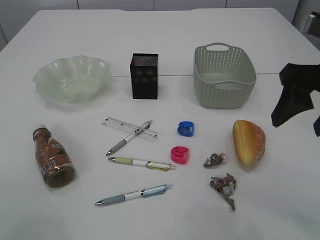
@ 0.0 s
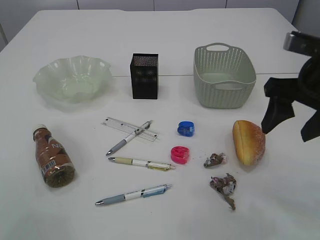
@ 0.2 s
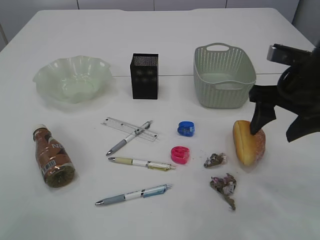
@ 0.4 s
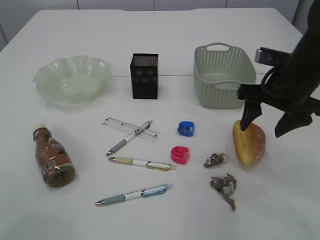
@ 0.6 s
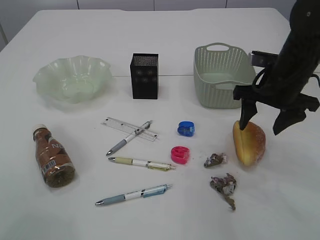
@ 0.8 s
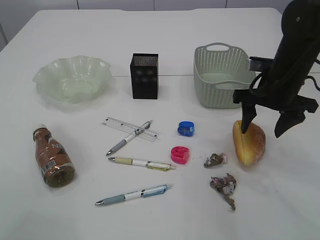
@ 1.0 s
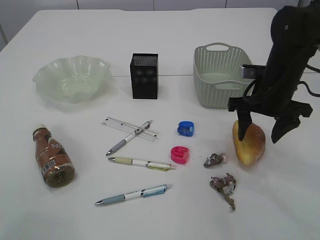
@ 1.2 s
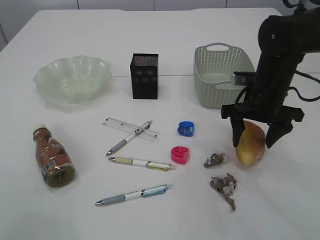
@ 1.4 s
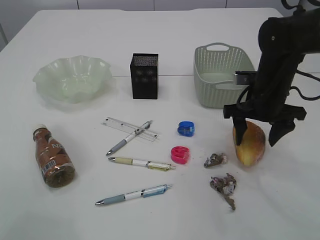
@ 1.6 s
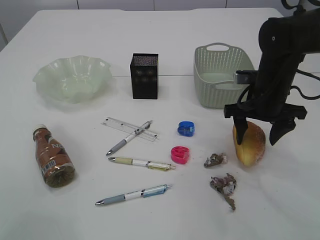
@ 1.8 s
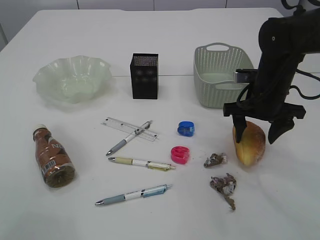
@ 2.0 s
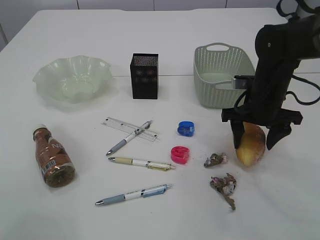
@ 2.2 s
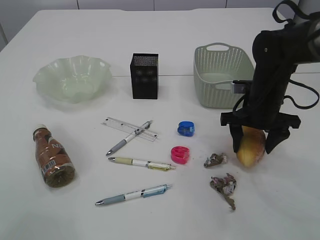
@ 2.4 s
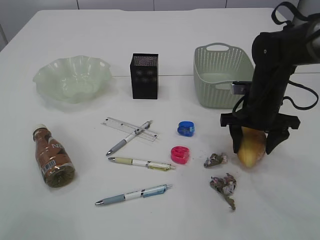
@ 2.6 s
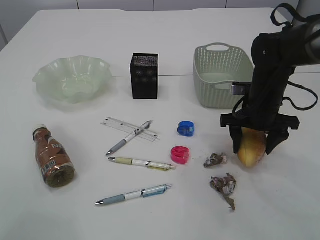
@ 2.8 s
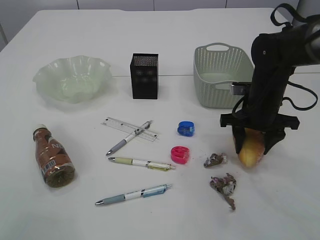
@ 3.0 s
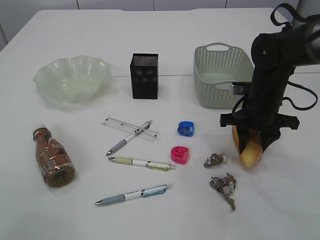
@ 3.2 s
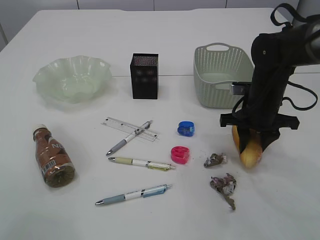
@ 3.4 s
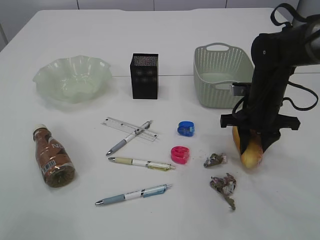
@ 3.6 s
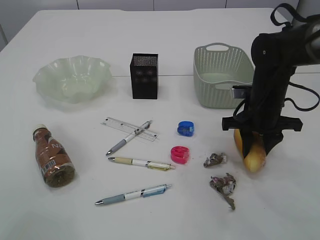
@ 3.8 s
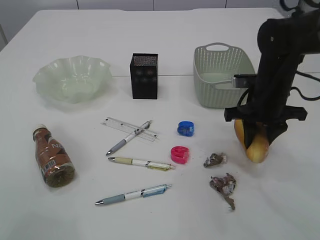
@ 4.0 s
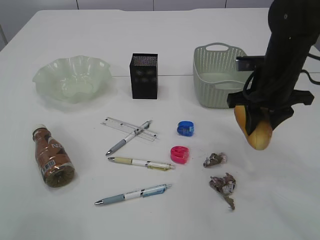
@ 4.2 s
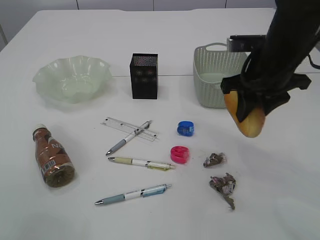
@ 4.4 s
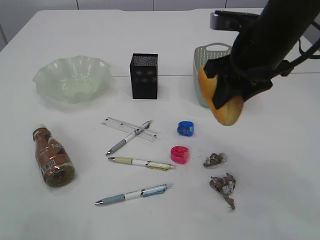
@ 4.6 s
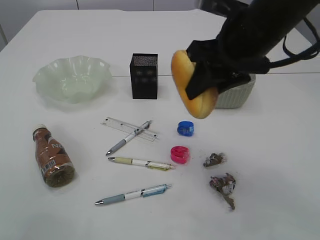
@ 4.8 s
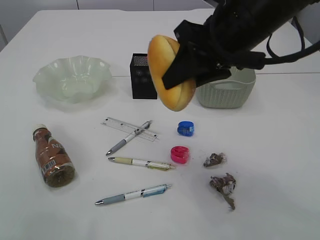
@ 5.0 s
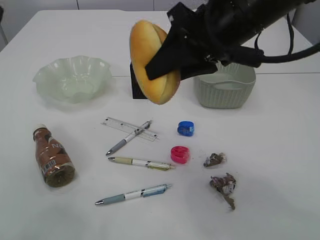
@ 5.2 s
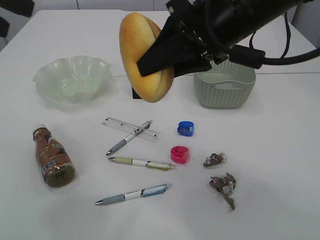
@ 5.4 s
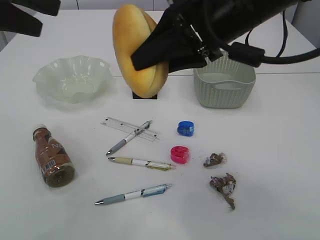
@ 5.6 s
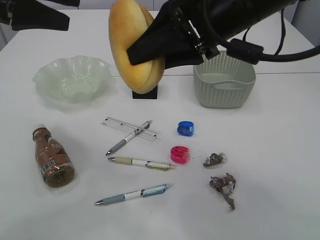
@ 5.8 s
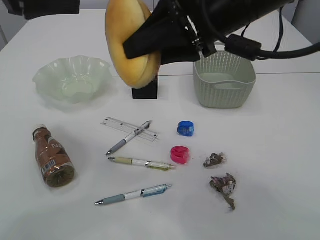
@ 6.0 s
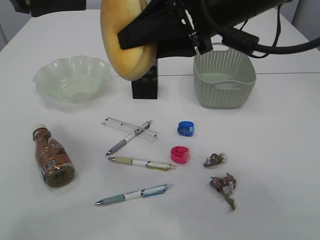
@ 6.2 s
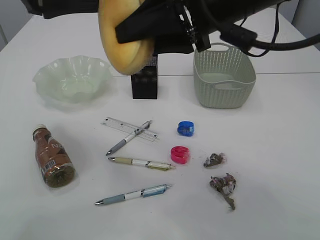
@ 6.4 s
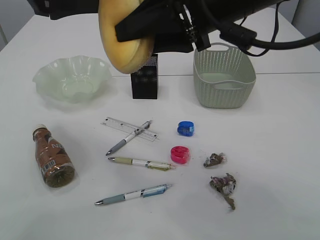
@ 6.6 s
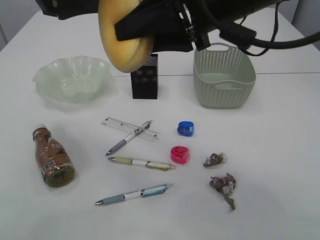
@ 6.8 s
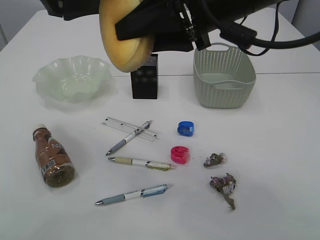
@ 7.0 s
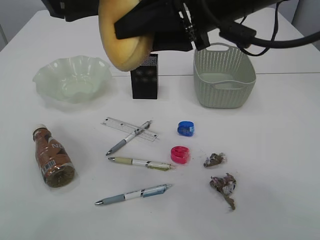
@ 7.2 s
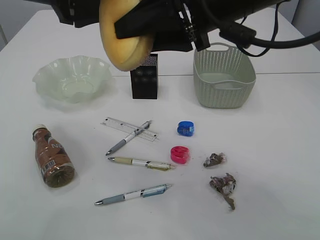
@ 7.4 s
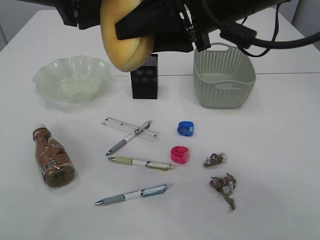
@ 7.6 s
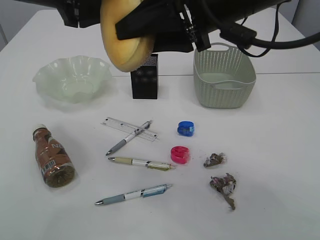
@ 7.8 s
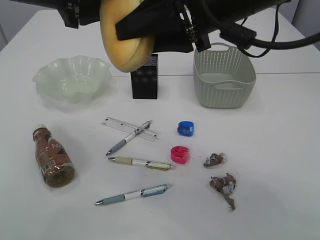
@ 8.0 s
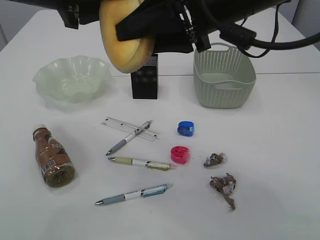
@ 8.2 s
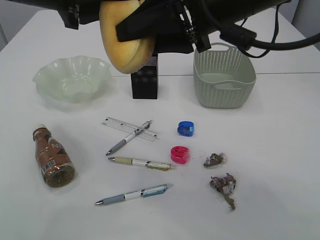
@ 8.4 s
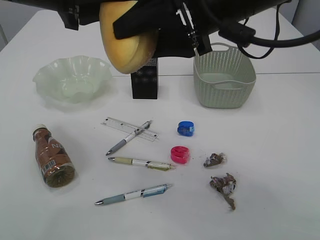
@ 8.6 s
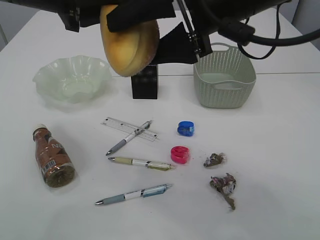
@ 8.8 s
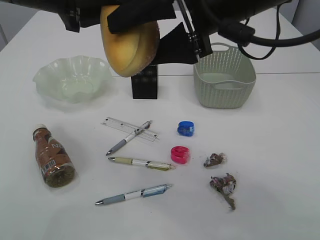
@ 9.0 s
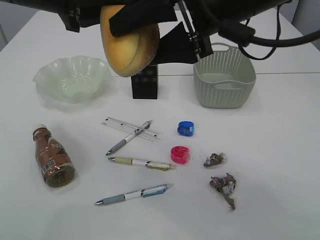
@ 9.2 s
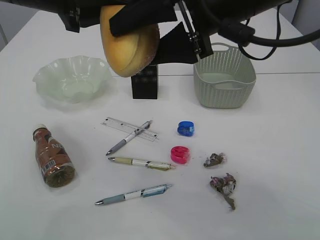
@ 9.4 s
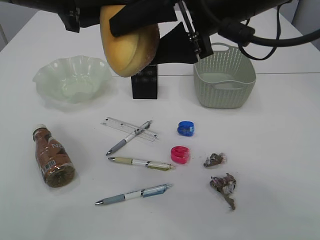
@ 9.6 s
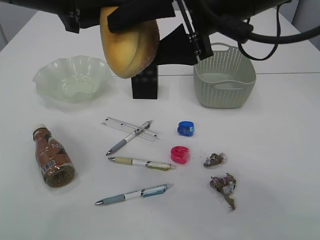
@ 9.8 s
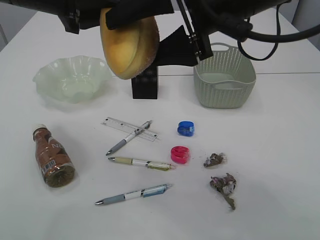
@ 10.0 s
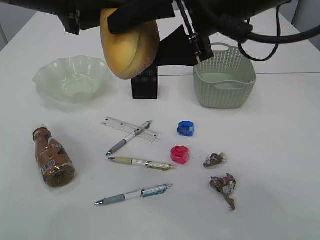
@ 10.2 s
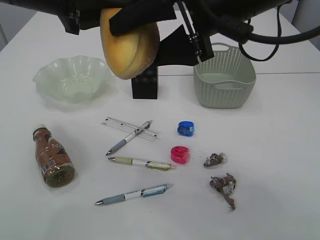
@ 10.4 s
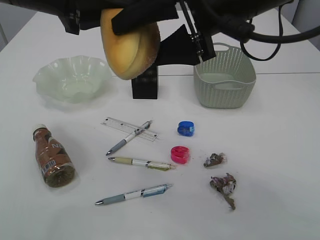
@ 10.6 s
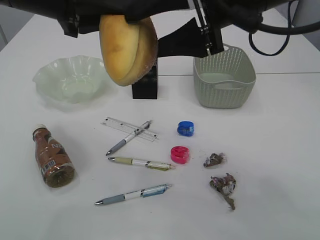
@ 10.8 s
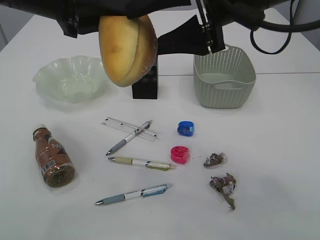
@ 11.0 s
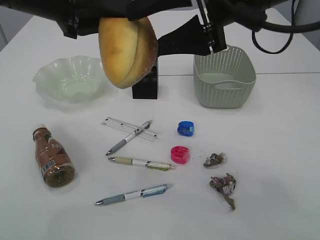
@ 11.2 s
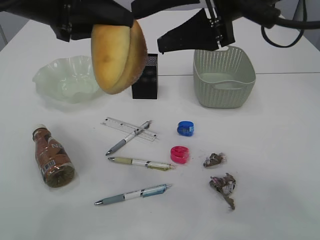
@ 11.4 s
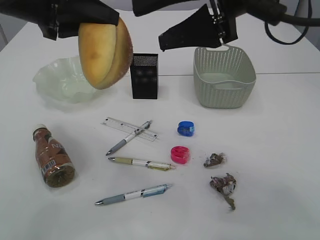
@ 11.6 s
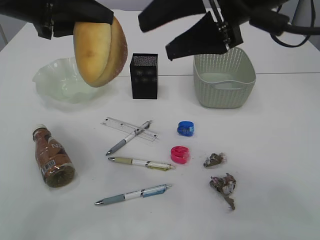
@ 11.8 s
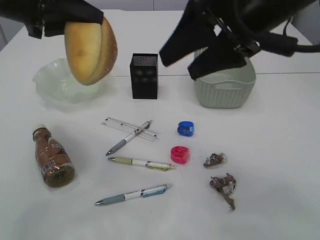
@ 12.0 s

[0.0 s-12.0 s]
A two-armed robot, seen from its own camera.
Step, 4.6 to 11.8 s: Hand over the bread.
0.0 to 1.6 s: The right gripper moves downward and forward, some 20 cm.
1.6 to 3.0 s: The grippers move only a little.
3.0 to 4.4 s: The right gripper heads upward, covering about 10 cm, and closes its fingers.
4.4 to 6.0 s: The right gripper heads upward, to the left and backward, covering approximately 15 cm. Meanwhile the left gripper shifts roughly 10 cm forward and to the right.
6.0 to 7.6 s: The left gripper heads to the right, covering roughly 5 cm.
7.6 to 9.0 s: The right gripper opens. Meanwhile the left gripper closes its fingers.
9.0 to 10.4 s: Both grippers stay put.
10.4 to 12.0 s: The left gripper goes approximately 5 cm to the left.

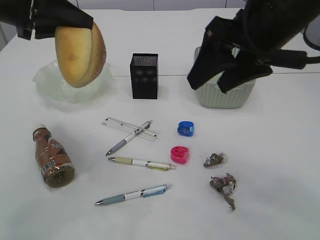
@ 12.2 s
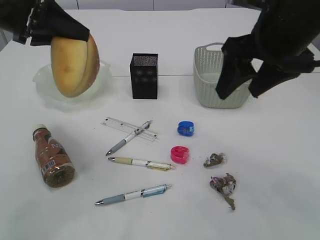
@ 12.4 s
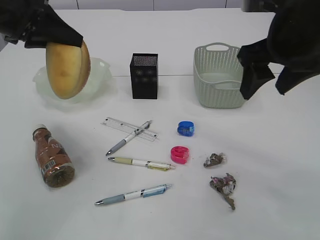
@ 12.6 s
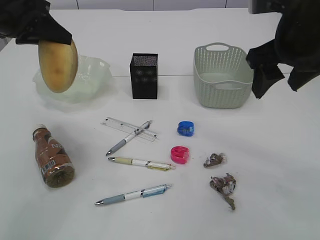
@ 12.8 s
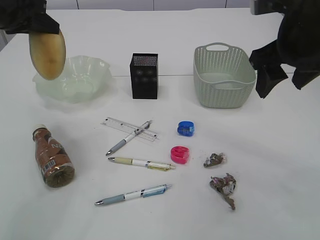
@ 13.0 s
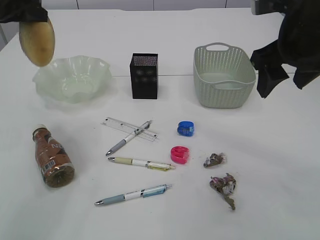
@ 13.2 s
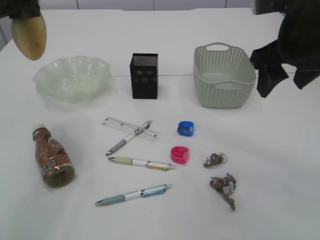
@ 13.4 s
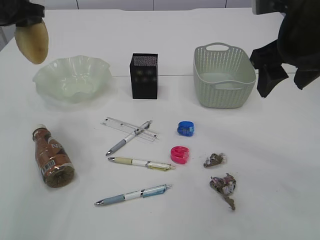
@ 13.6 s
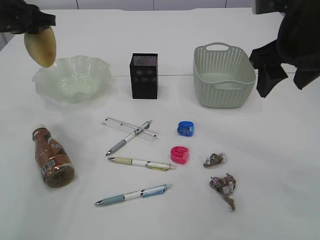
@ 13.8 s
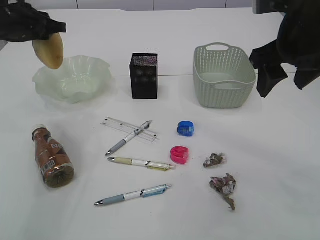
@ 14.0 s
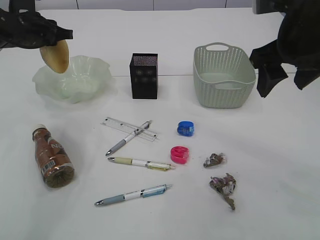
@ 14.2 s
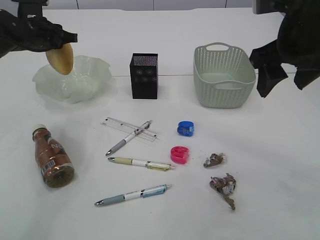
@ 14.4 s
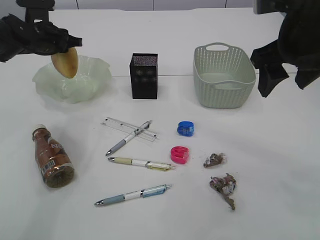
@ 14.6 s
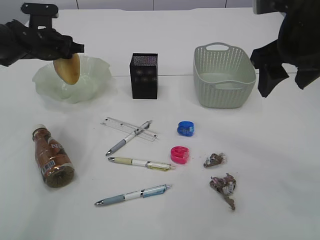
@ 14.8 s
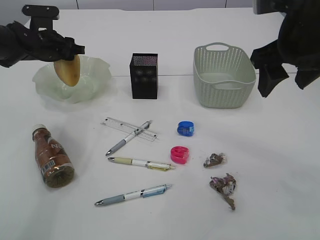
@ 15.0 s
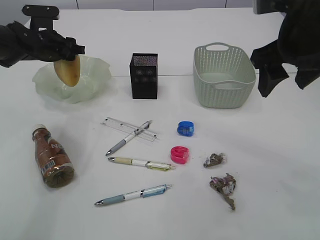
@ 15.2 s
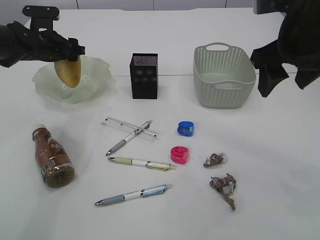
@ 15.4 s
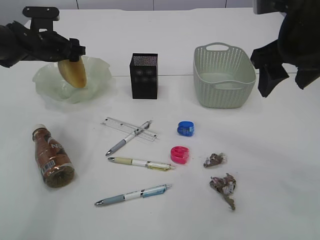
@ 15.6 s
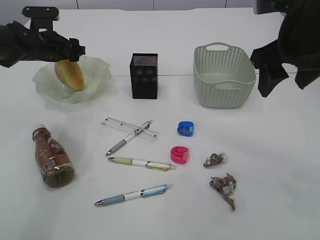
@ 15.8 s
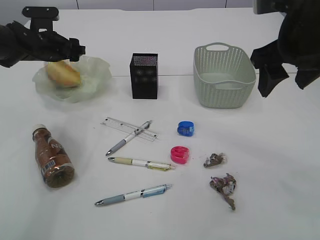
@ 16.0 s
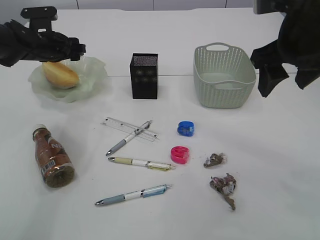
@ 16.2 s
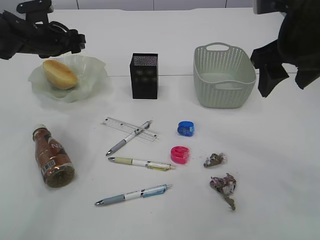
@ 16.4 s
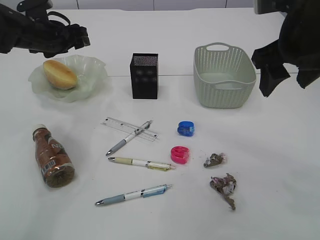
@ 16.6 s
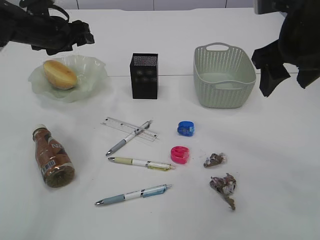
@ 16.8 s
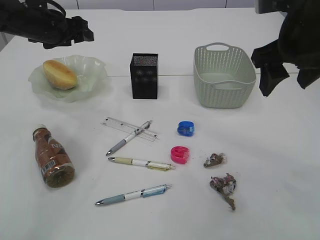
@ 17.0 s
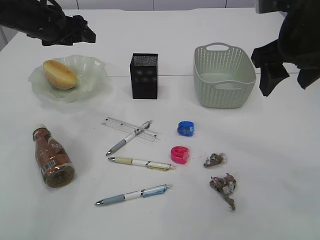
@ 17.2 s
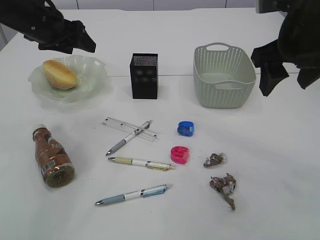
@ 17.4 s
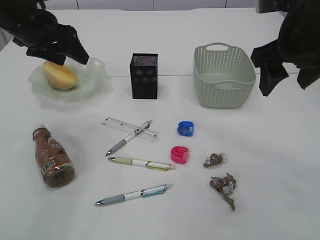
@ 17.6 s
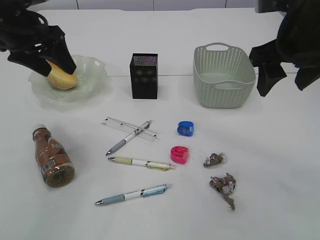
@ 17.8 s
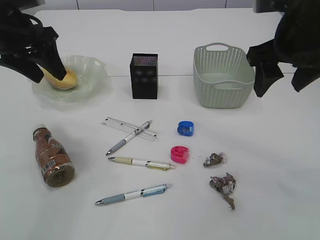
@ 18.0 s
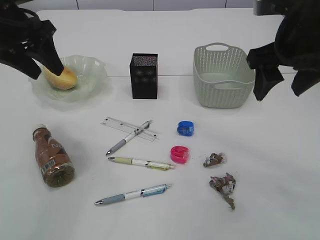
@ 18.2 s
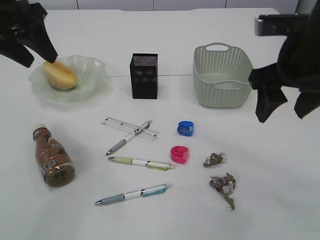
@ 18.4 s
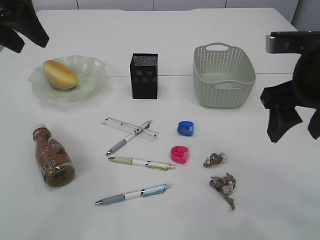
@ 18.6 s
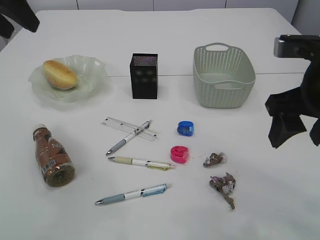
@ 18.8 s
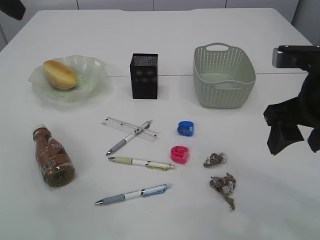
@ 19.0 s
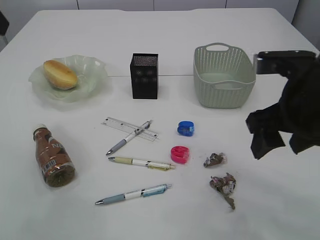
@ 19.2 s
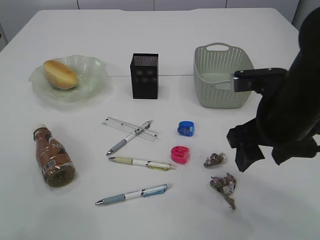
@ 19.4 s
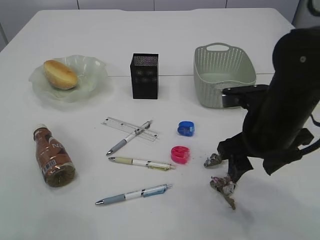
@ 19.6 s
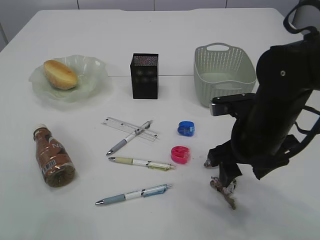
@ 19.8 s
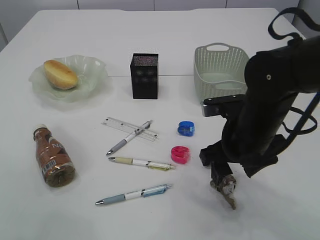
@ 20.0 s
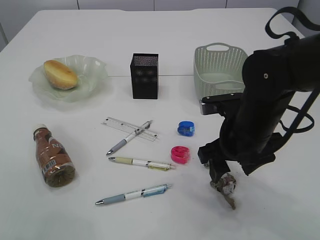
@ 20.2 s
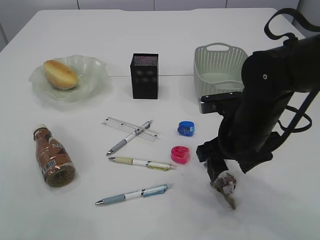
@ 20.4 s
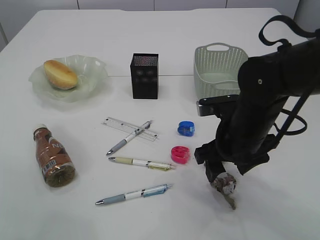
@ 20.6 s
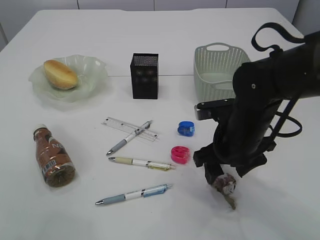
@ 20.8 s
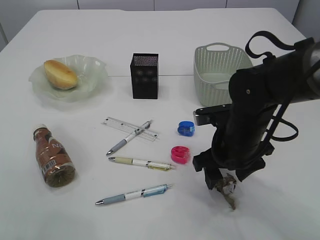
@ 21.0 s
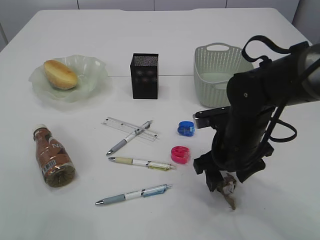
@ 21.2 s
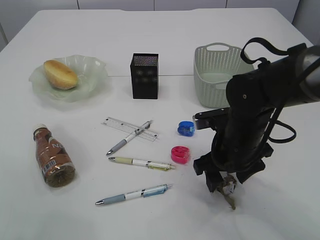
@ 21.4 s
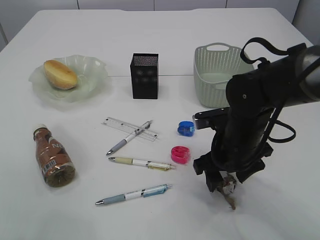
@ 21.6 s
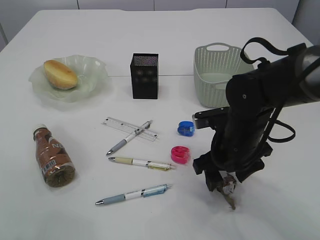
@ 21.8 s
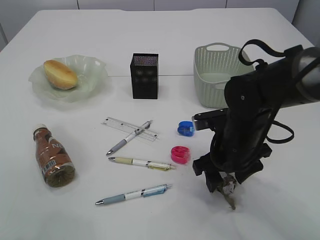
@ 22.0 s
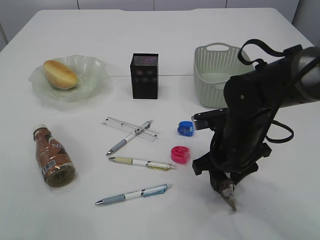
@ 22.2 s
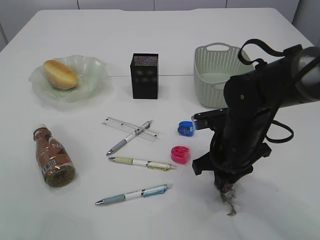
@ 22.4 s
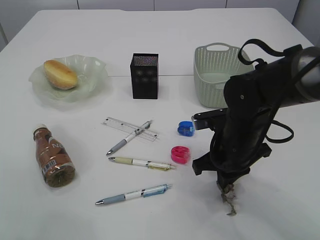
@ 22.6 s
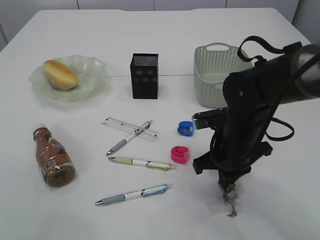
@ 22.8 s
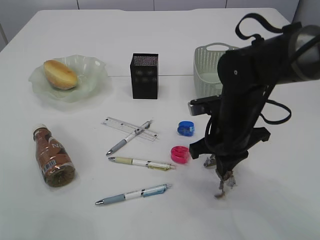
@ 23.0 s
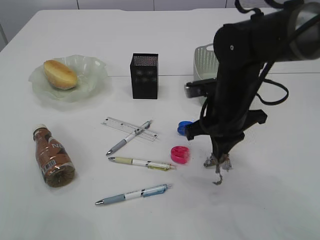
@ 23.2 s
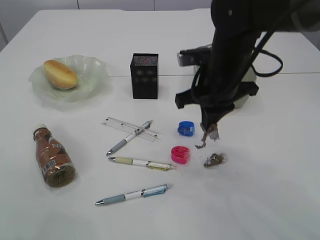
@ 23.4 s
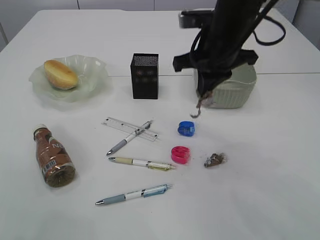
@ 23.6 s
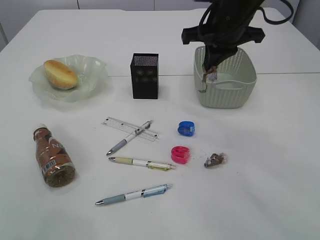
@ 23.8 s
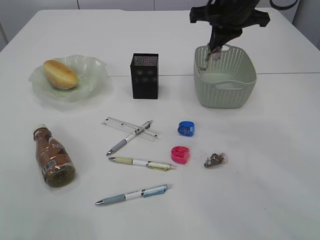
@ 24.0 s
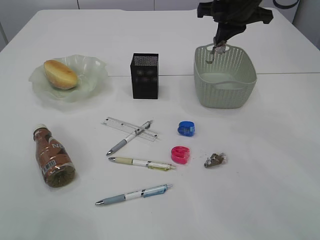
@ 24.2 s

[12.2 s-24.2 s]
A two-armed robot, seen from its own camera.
Step, 12.2 to 16.4 s: place the bread in the plate.
Step, 16.6 to 23.2 s: Pick up the waste paper.
12.2 to 13.8 s: The left gripper is displaced forward, downward and to the left by some 10 cm. The right gripper goes some 5 cm to the right.
13.8 to 15.2 s: The left gripper moves downward and forward, approximately 10 cm, and opens its fingers.
16.6 to 18.2 s: The left gripper moves backward and upward, roughly 15 cm.
18.2 to 19.8 s: The right gripper is displaced downward by roughly 15 cm; the left gripper is displaced backward and upward by approximately 15 cm.
19.8 to 21.2 s: The right gripper heads downward, covering about 5 cm.
21.2 to 22.6 s: The right gripper closes up.
22.6 to 24.2 s: The right gripper heads upward and forward, covering roughly 25 cm.
